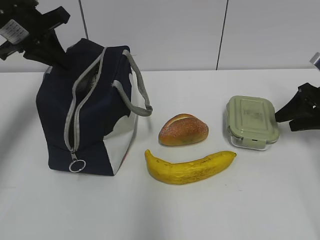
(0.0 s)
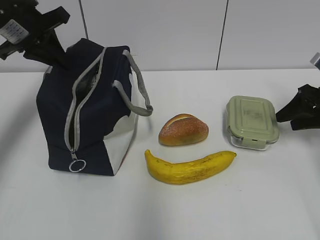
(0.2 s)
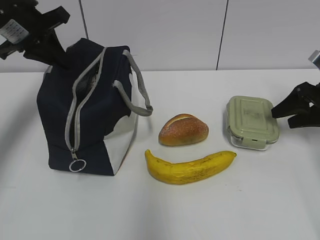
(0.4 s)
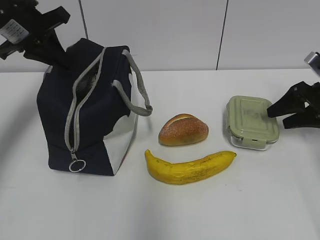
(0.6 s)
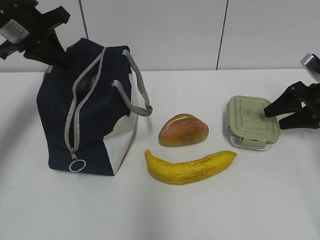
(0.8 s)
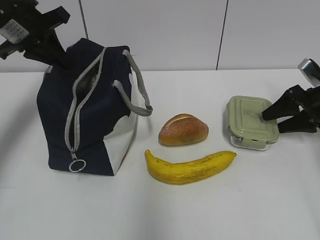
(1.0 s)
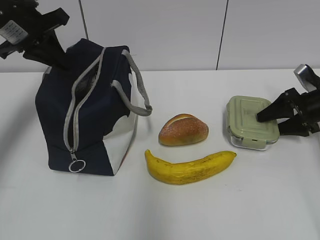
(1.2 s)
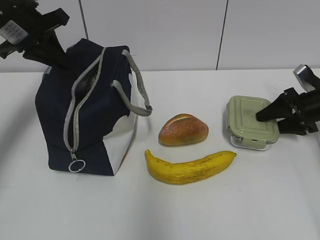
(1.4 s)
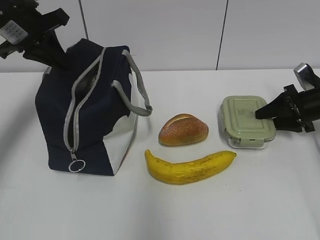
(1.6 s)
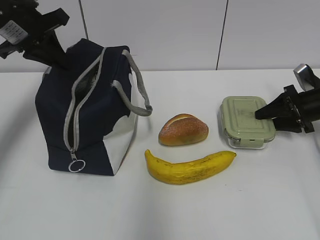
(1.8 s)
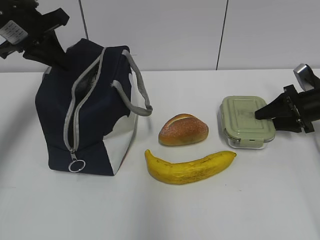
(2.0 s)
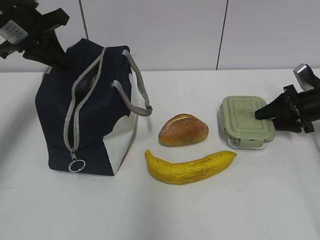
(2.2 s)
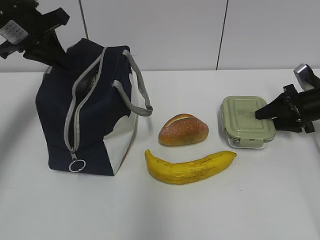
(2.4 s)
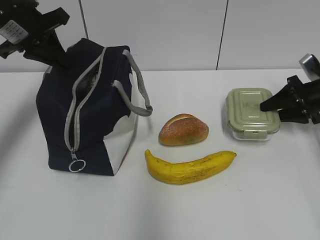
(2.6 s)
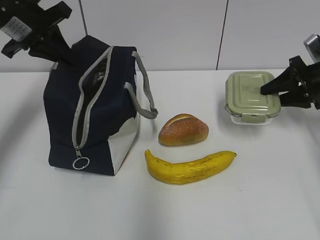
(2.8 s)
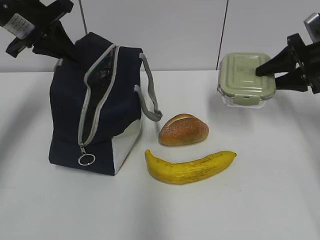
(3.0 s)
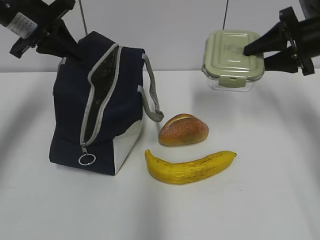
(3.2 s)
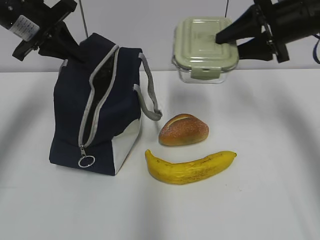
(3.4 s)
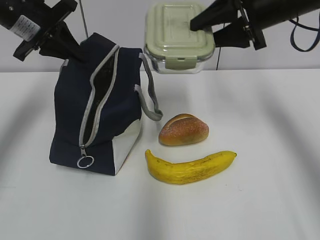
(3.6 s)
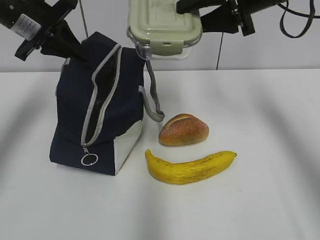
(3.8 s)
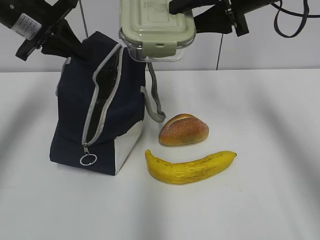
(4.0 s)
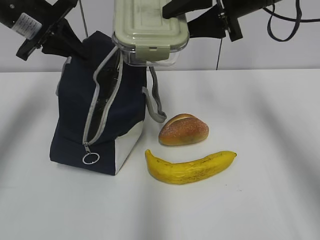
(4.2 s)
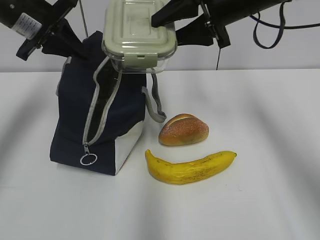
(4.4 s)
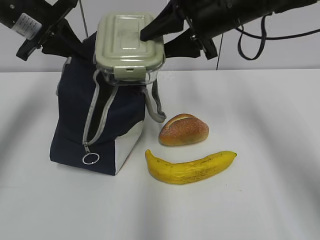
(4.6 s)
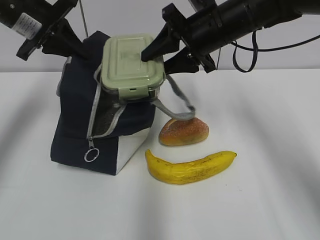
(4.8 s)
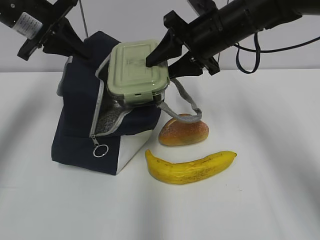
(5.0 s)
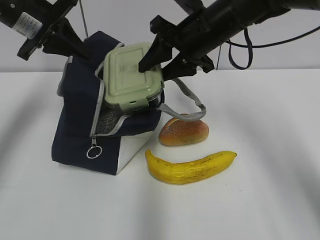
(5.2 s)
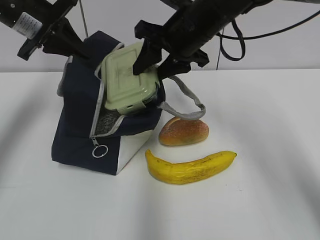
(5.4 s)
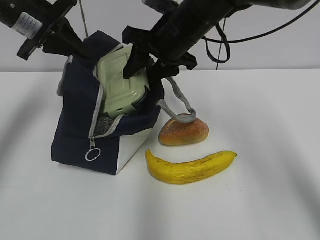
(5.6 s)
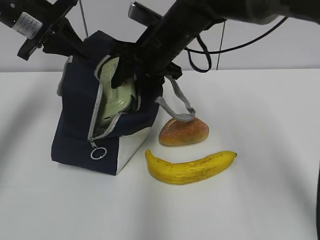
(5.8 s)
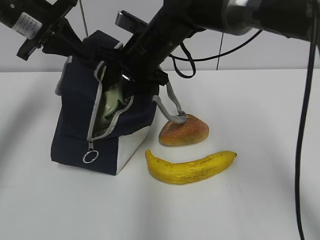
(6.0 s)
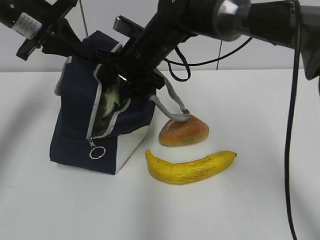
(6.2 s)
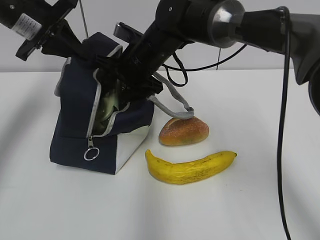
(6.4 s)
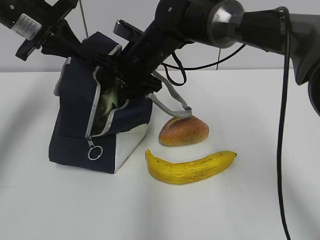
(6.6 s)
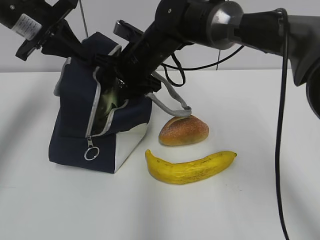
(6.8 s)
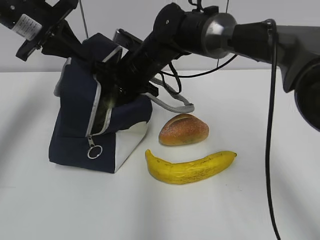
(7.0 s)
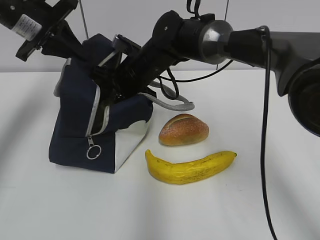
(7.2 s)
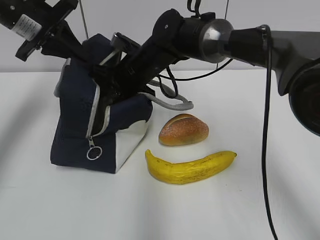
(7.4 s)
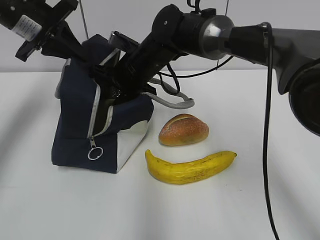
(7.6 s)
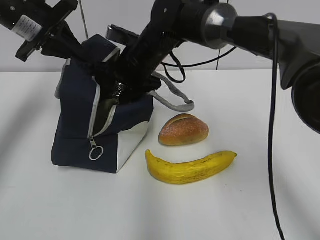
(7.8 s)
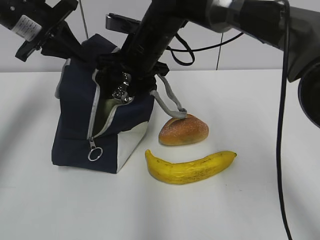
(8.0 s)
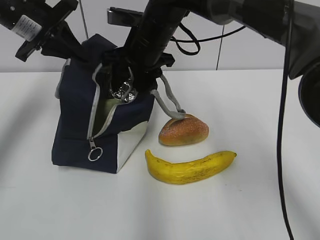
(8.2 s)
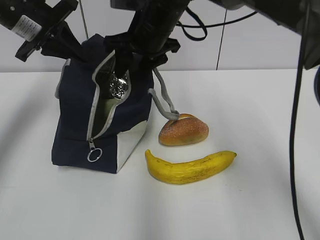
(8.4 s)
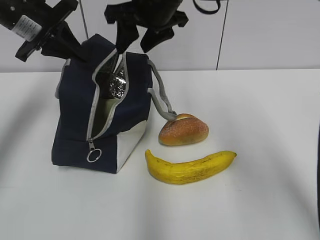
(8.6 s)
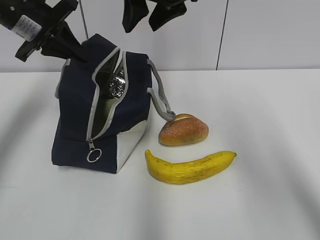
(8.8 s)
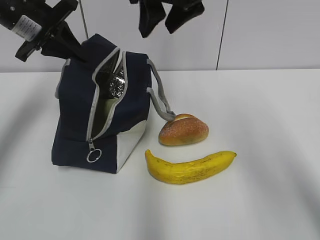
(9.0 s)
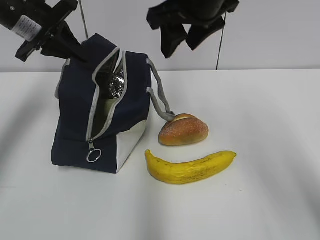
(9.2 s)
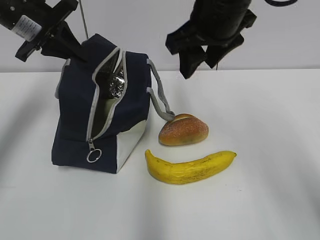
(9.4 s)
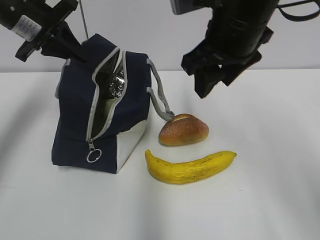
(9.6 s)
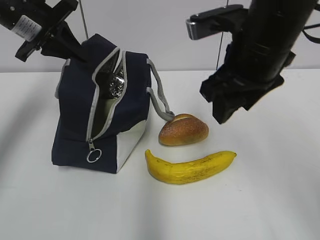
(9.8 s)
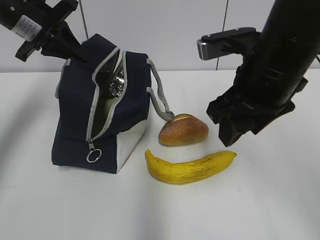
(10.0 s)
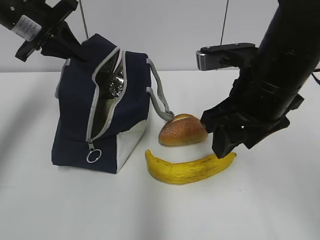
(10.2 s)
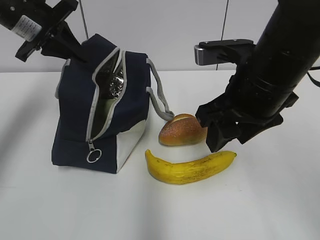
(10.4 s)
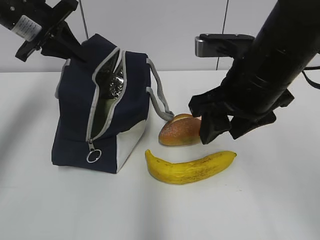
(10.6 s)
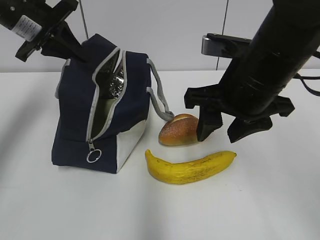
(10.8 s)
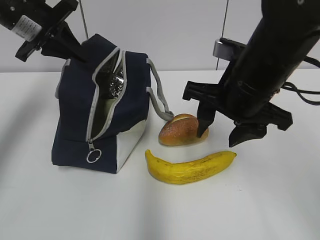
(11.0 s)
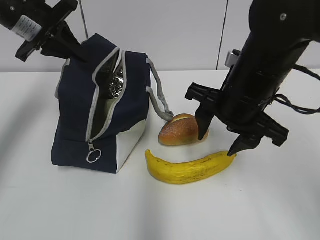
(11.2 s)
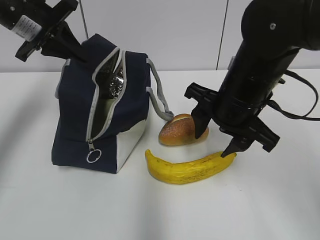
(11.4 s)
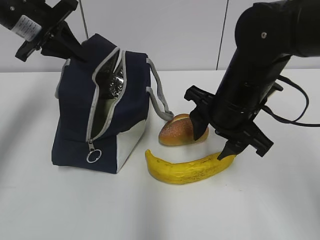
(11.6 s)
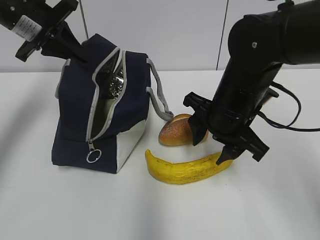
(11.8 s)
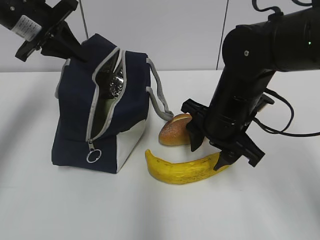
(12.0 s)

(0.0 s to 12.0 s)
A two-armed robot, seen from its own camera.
Step, 5.0 s - 7.8 s: Place it into the bag with your right hand.
0.0 s - 1.6 s: The right gripper shifts some 5 cm downward.
1.6 s - 3.0 s: The right gripper moves upward, about 10 cm.
3.0 s - 4.4 s: The right gripper is displaced to the left and upward by roughly 20 cm.
4.4 s - 6.0 s: The right gripper travels to the left and downward by approximately 15 cm.
6.0 s - 7.6 s: The right gripper shifts by roughly 5 cm.
7.6 s - 9.0 s: The right gripper moves upward and to the right, about 20 cm.
9.0 s - 10.4 s: The right gripper goes about 15 cm backward, downward and to the right.
10.4 s - 12.0 s: The right gripper is displaced downward by approximately 10 cm.

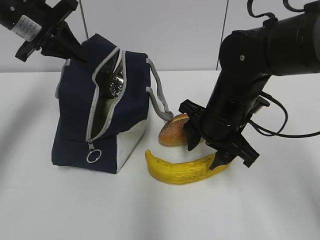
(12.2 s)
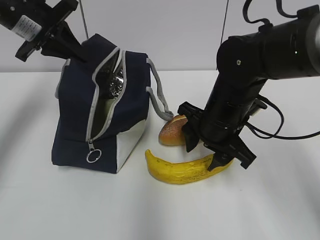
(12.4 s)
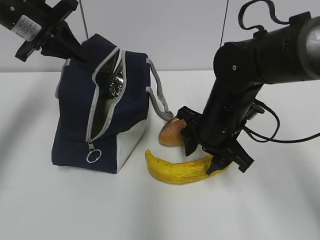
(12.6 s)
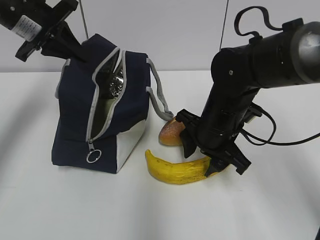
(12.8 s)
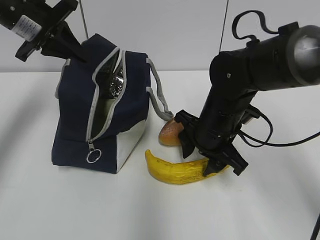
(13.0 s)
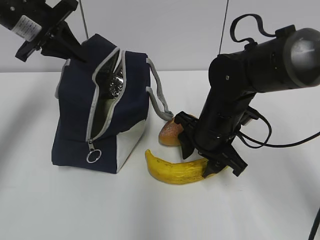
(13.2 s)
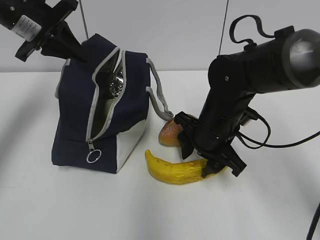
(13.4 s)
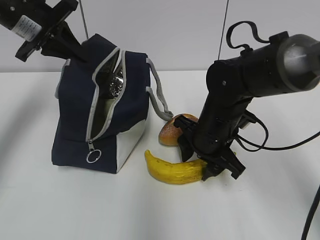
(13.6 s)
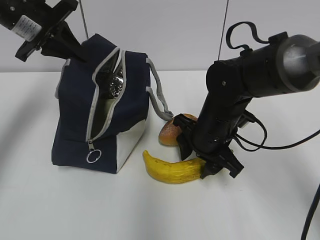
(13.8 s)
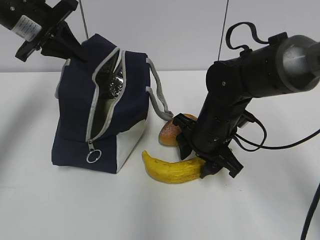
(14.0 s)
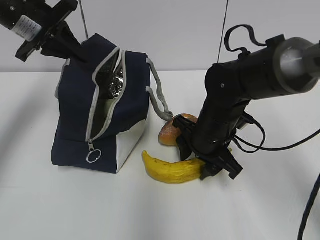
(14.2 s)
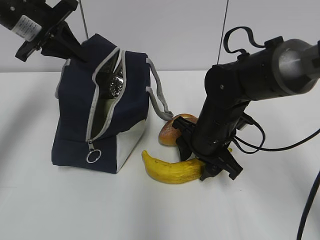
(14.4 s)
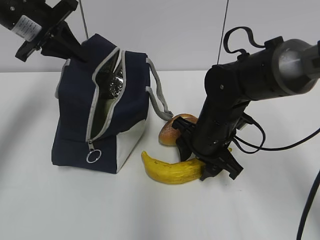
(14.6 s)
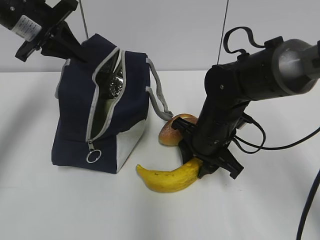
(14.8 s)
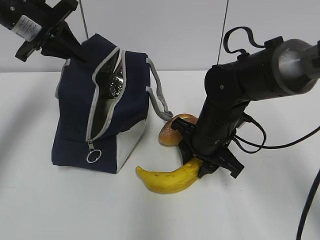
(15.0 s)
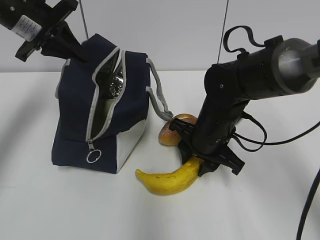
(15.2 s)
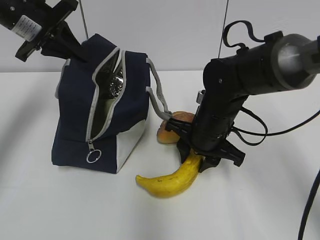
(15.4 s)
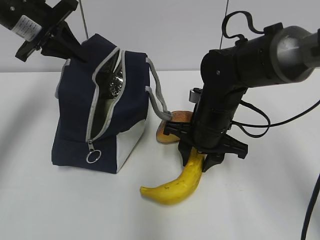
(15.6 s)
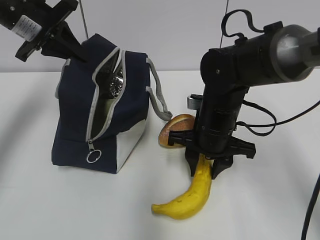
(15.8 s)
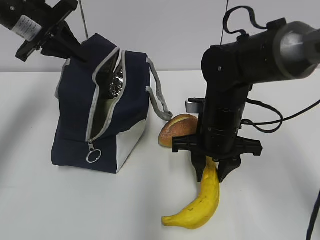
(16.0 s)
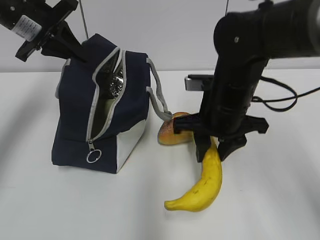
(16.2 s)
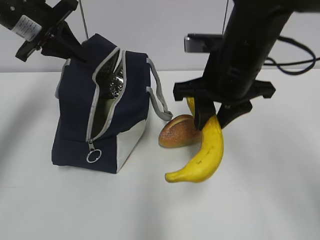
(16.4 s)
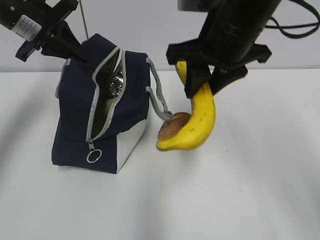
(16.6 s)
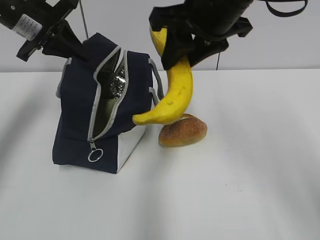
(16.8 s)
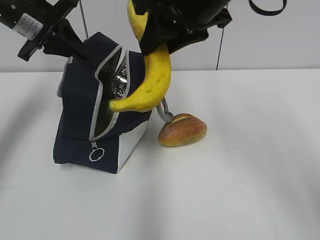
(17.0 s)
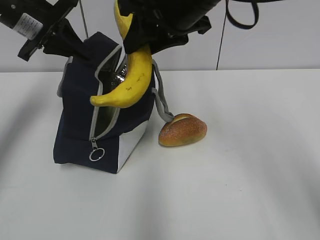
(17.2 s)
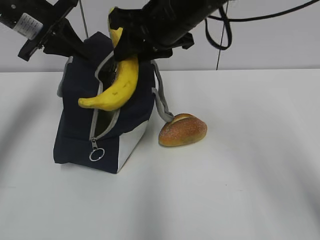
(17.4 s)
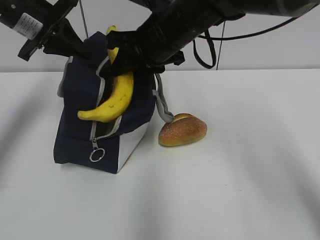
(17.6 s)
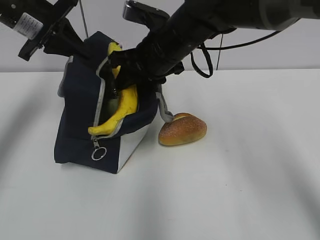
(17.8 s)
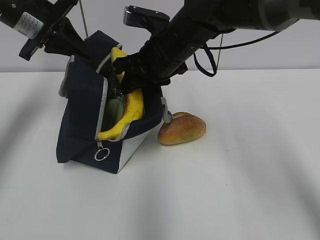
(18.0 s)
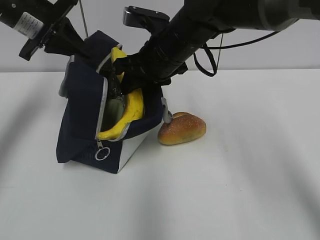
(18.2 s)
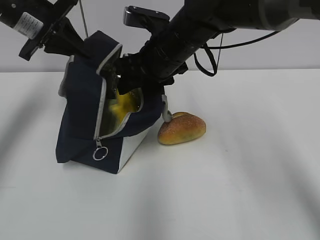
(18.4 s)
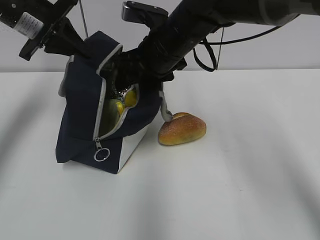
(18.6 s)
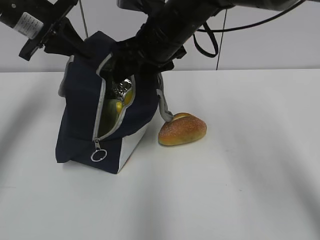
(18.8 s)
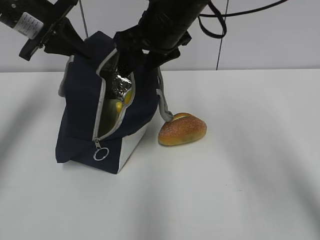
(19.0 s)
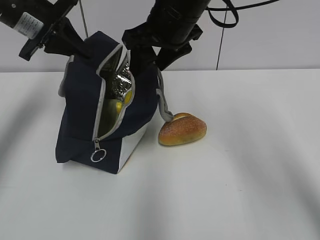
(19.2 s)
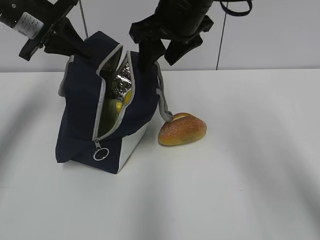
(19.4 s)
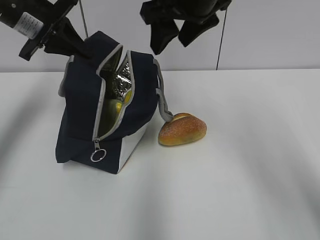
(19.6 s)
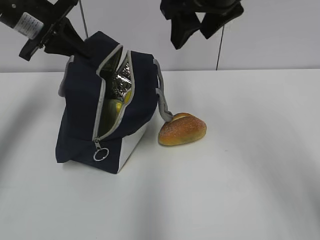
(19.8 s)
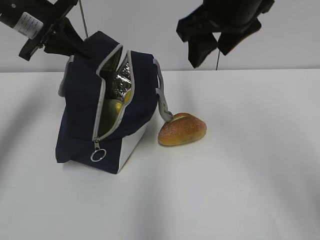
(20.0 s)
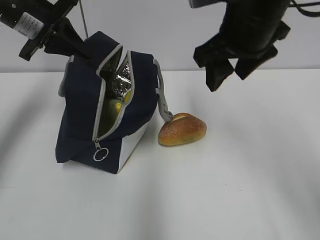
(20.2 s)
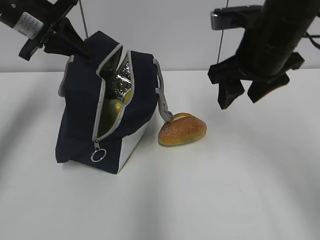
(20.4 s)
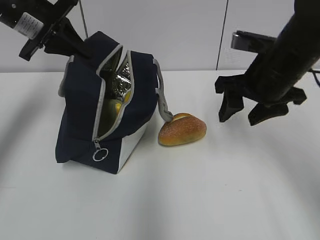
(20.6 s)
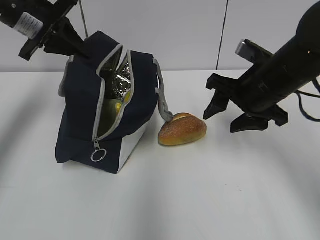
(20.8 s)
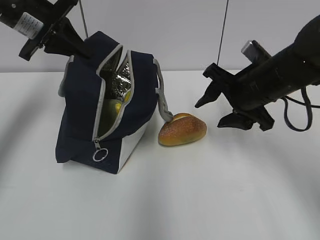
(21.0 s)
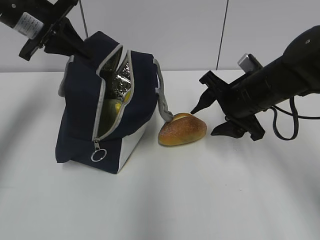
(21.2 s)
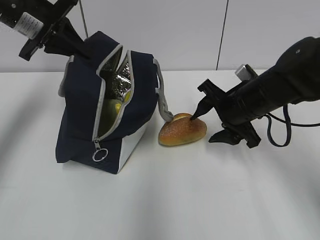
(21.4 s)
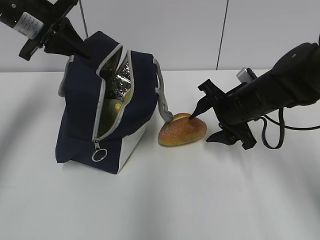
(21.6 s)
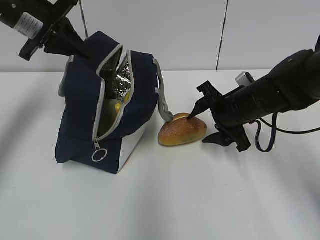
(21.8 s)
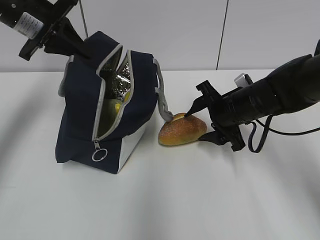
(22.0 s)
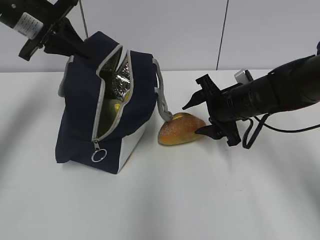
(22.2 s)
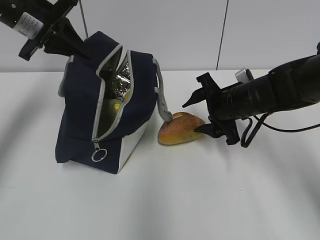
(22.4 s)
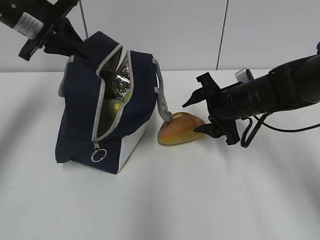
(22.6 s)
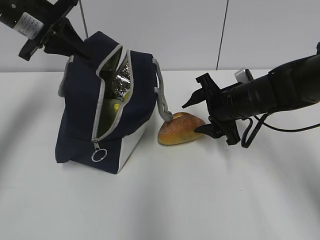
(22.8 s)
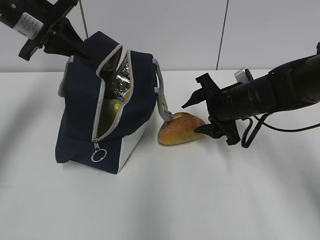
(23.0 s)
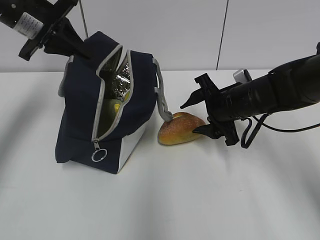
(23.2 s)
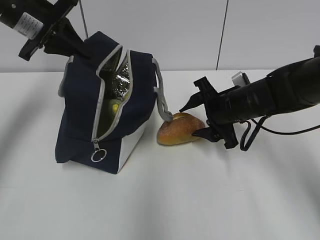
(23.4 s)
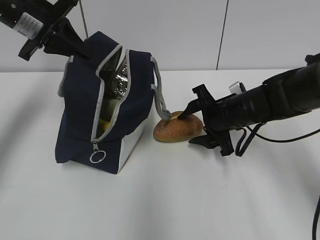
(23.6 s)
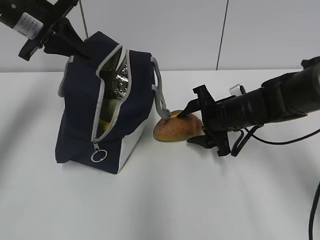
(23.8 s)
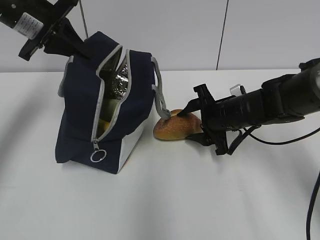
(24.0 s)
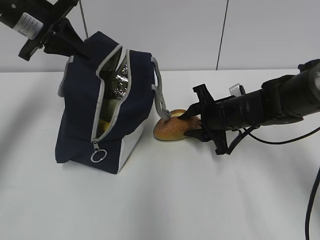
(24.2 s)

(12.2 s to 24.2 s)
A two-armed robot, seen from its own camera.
Step, 12.2 s - 15.2 s: Grab the banana with your right hand.
Step, 15.4 s - 18.4 s: Place it into the bag with your right hand.
12.2 s - 15.2 s: The grippers make only small movements.
15.2 s - 16.6 s: The right gripper shifts some 20 cm upward.
16.6 s - 18.2 s: The right gripper heads forward, to the left and downward, covering roughly 10 cm.
18.2 s - 19.8 s: The right gripper goes roughly 15 cm upward and to the right.
19.8 s - 21.2 s: The right gripper travels downward by about 20 cm.
21.2 s - 22.6 s: The right gripper shifts by some 5 cm.
22.6 s - 24.2 s: The grippers move only a little.
